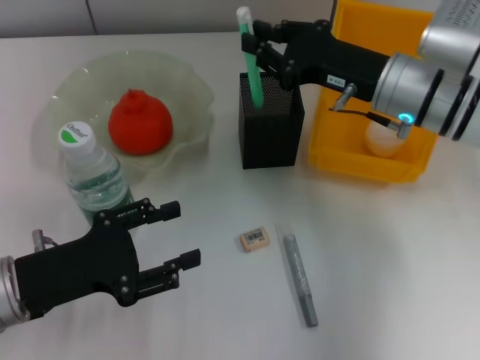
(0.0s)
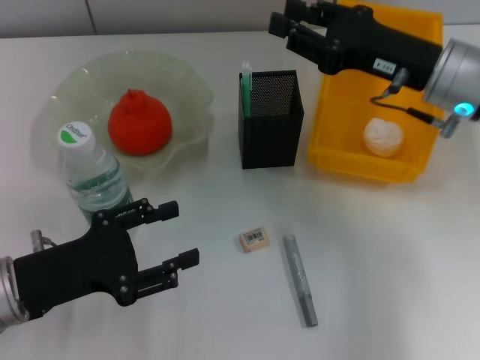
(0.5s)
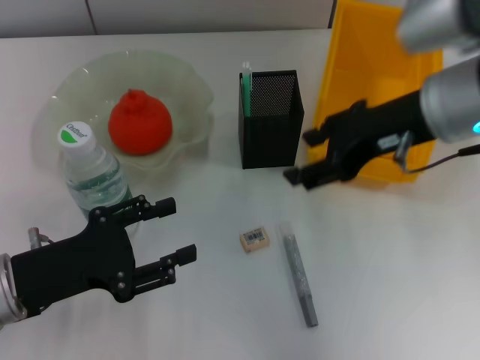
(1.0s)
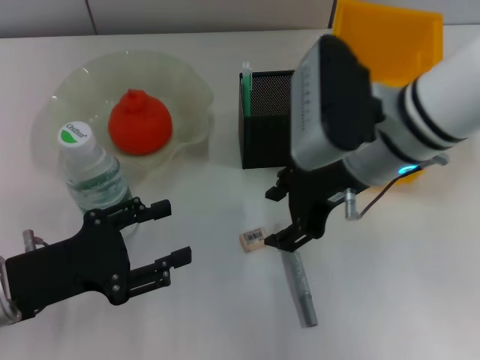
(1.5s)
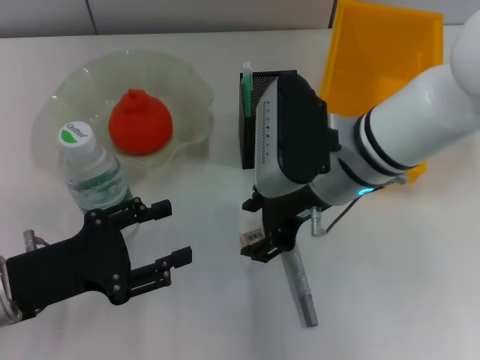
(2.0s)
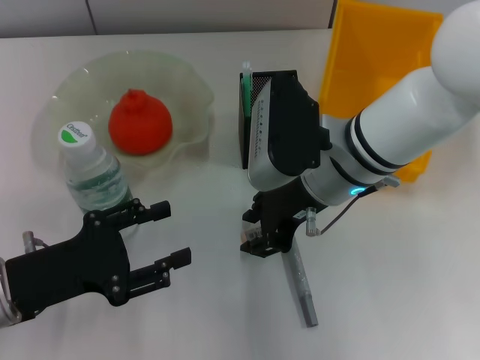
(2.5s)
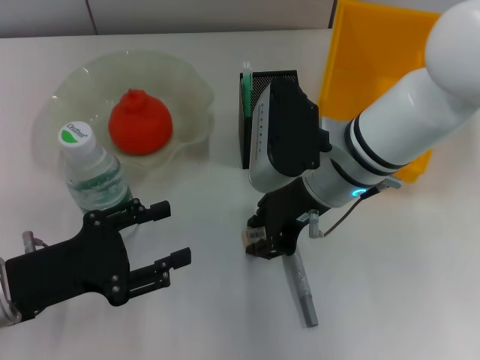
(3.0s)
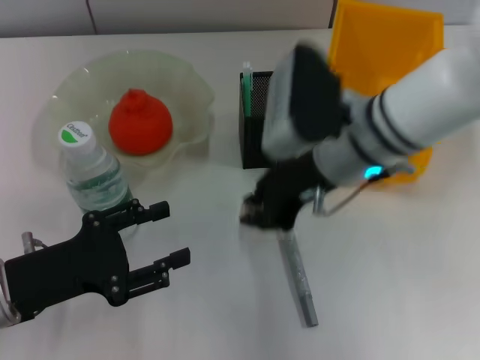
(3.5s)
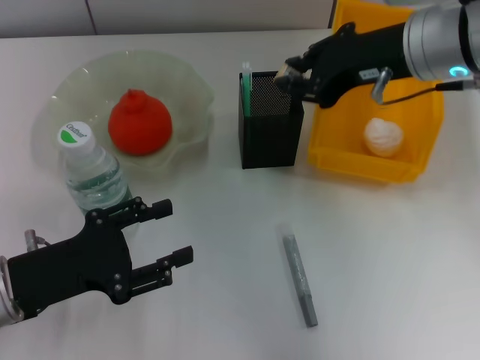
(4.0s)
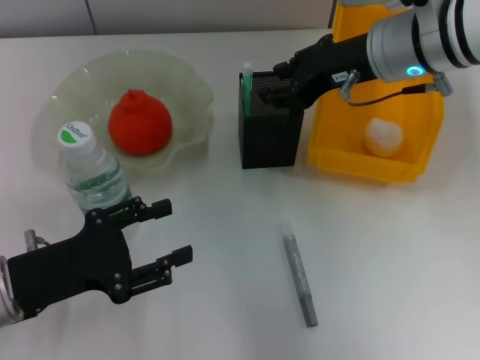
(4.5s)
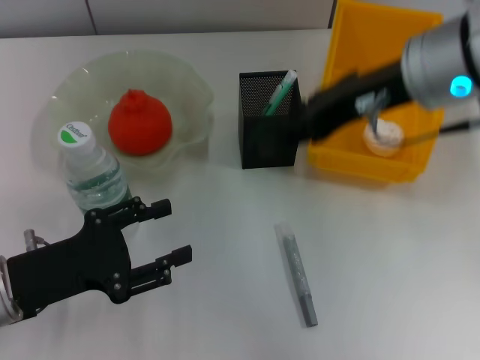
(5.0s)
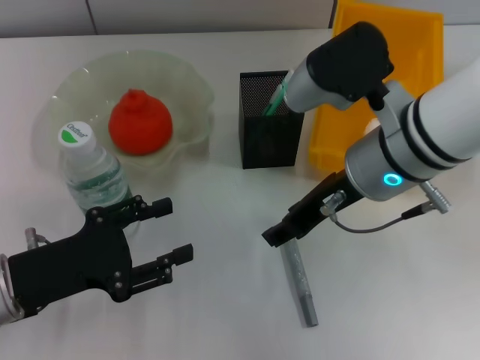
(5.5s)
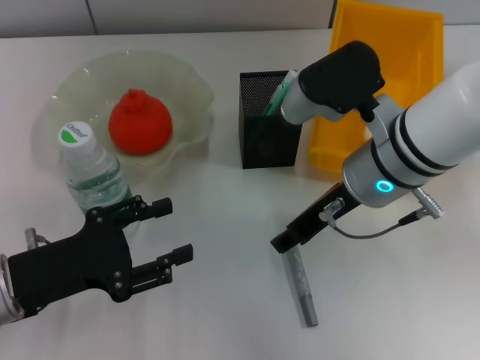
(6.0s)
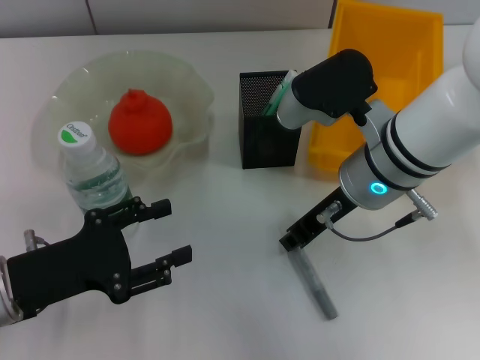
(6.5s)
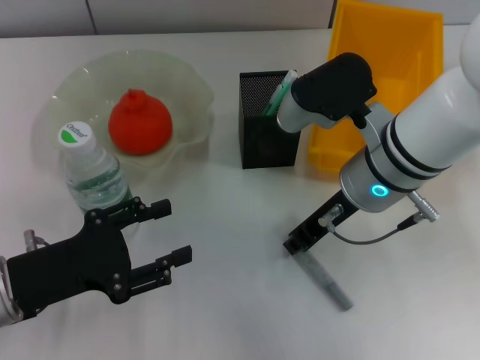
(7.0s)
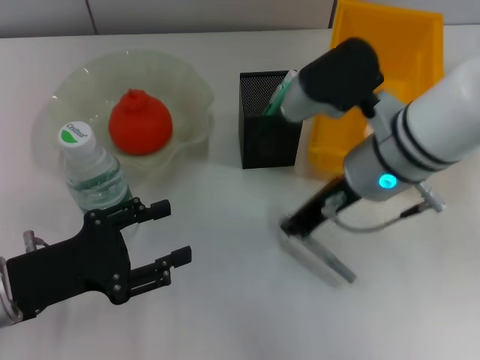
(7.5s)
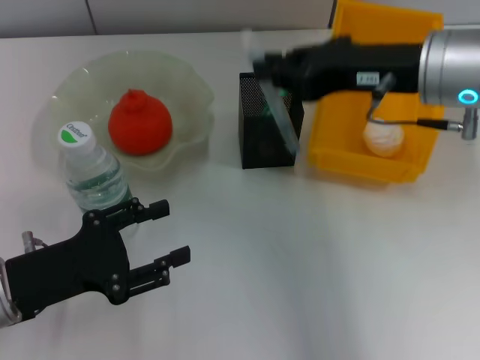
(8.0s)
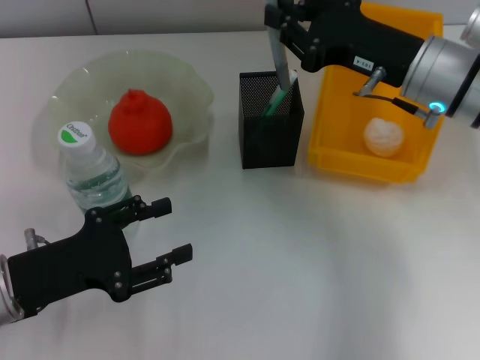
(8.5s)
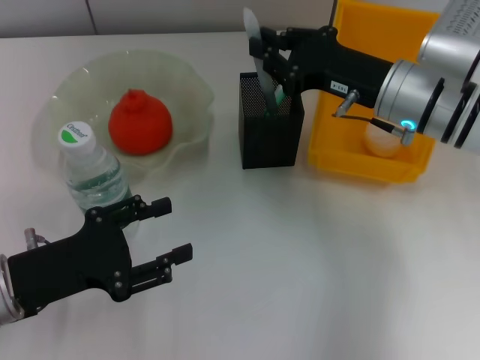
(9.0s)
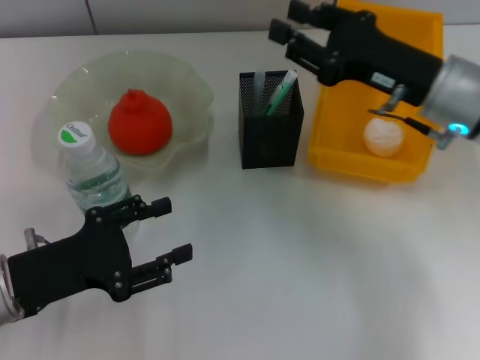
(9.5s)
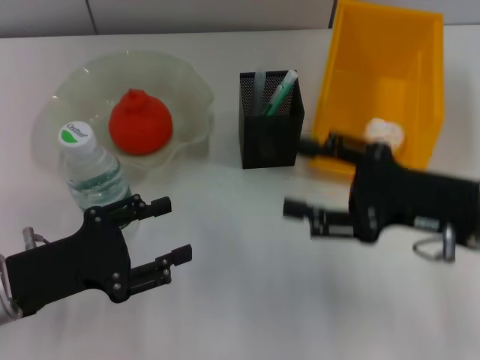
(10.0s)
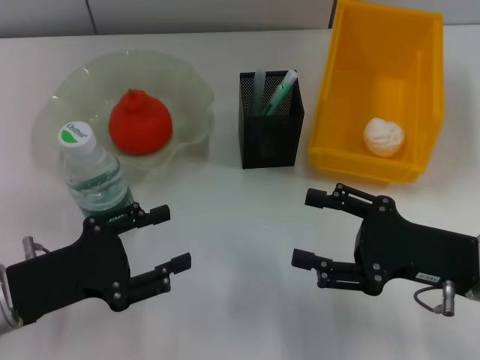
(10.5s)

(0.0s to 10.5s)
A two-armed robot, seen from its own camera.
Step, 1.0s - 3.0s: Grab the eraser with the right hand.
Step, 3.5s - 5.0s: Put the eraser into the pen holder with the right hand.
Step, 5.5s - 7.0s: Grab the gray glue with the right hand.
Step, 7.5s - 9.5s: Place the gray glue into the pen holder with the right hand.
0.0s - 2.0s: The right gripper shifts some 10 cm to the left, and opens its fingers.
2.0s - 4.0s: The right gripper goes about 10 cm upward and to the right, and closes.
4.0s - 6.5s: The right gripper is displaced downward and to the left by about 10 cm.
6.5s - 8.5s: The right gripper travels to the right by approximately 5 cm, and closes up.
8.5s - 10.5s: The right gripper moves backward and downward, approximately 15 cm, and opens its fingers.

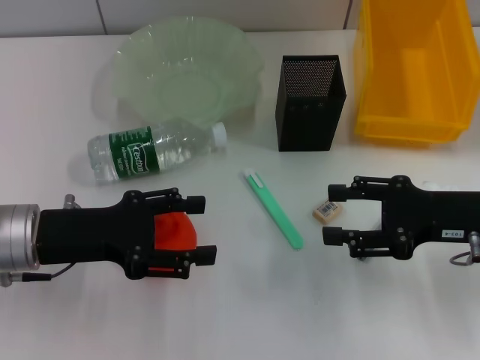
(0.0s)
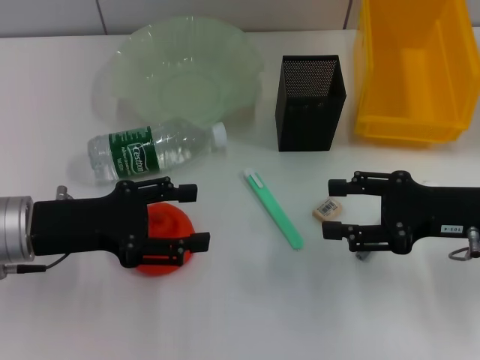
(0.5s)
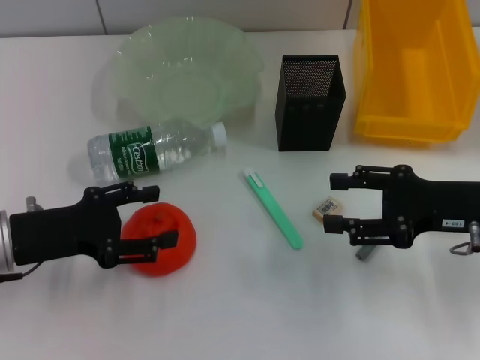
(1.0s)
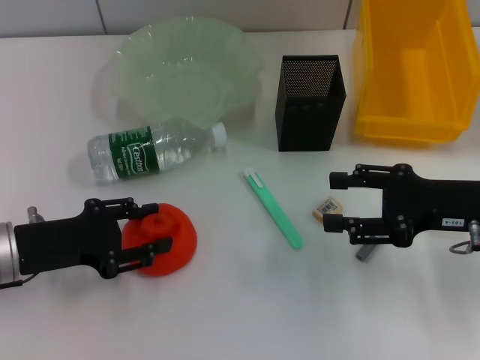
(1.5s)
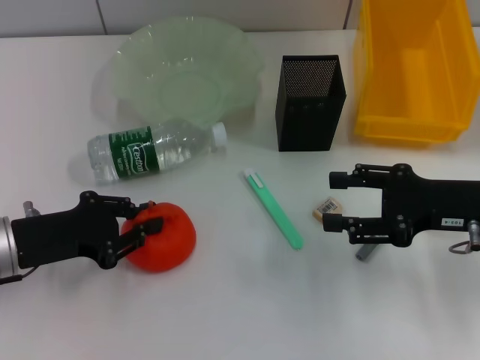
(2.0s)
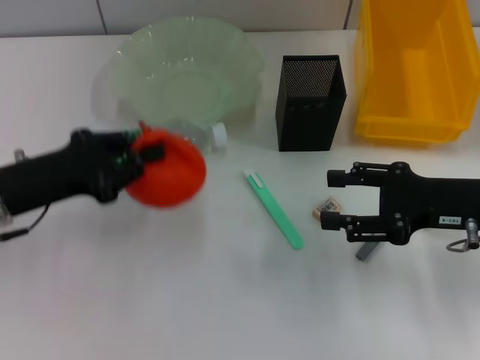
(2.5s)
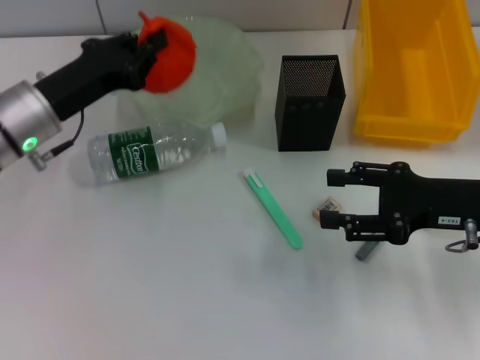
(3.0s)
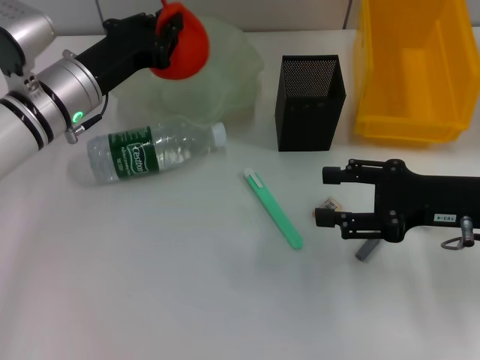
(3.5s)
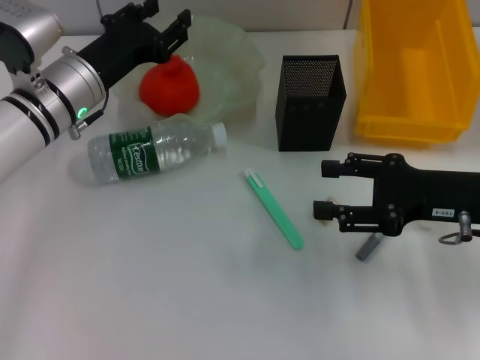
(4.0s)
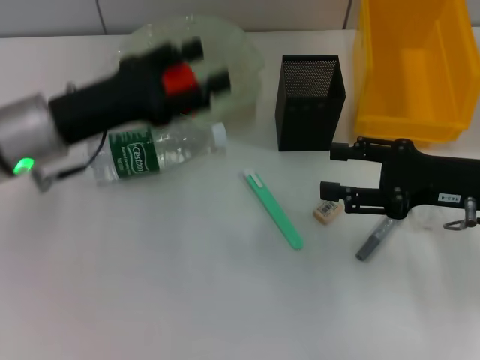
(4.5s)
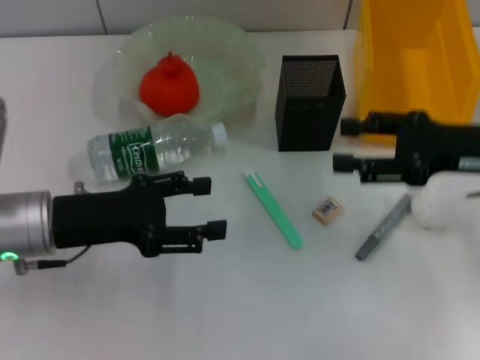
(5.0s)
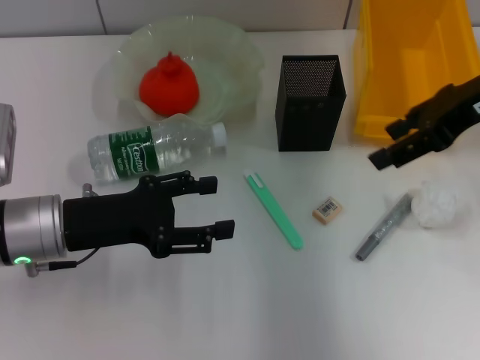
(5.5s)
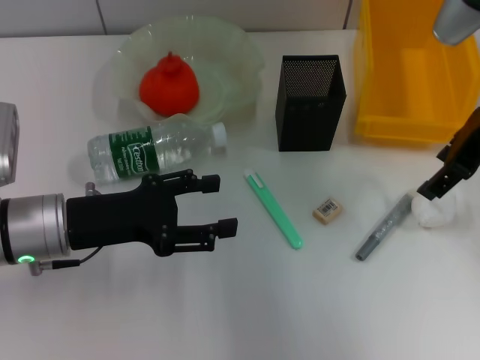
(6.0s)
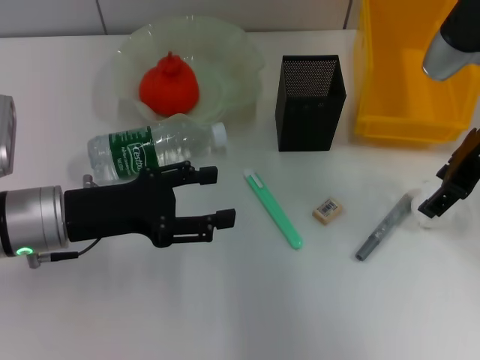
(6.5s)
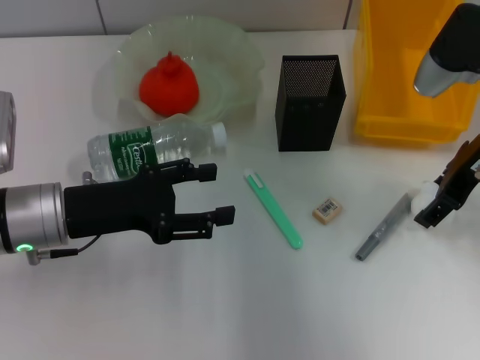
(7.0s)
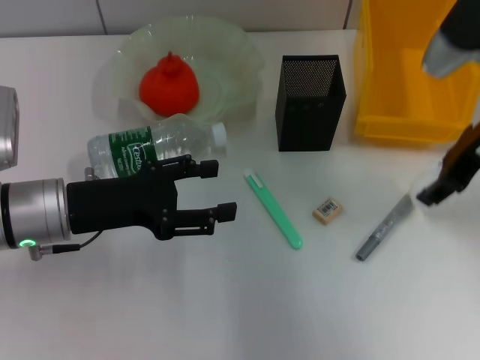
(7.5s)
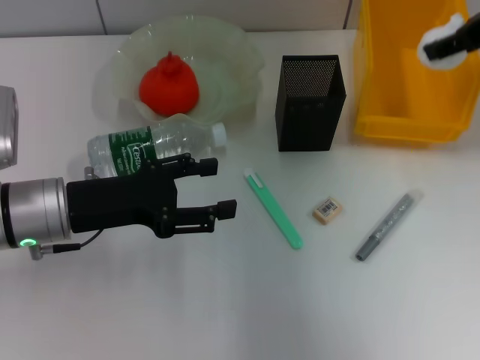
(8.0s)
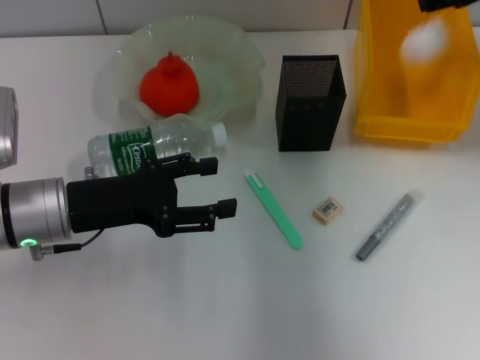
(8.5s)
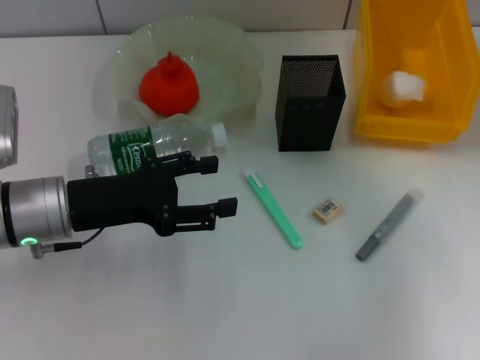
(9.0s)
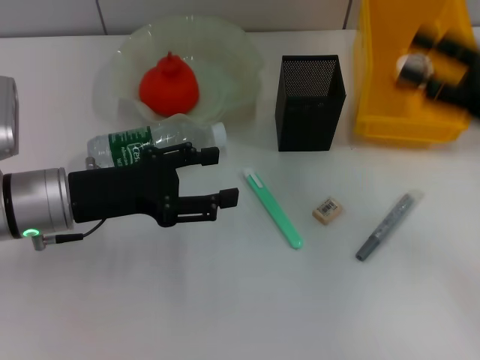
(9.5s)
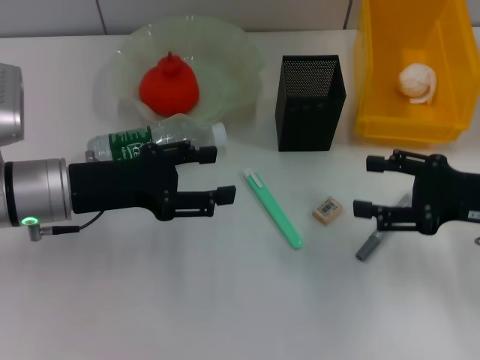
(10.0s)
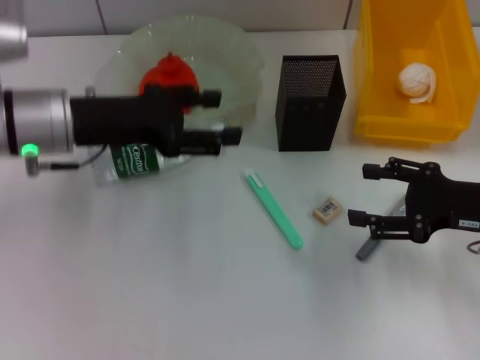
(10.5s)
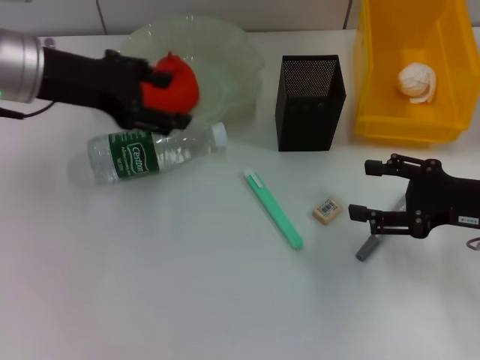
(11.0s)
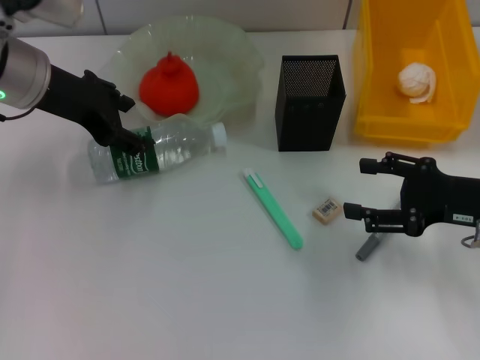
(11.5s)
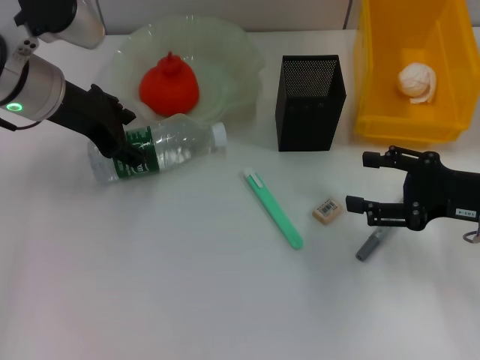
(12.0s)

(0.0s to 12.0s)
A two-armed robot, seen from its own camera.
Step, 0.0s - 1.5s: Grab the orange with the left hand.
Step, 2.5s - 4.0s: Place the orange into the fruit bowl with the left hand.
Step, 4.5s - 7.0s: Grab the paper ball with the right hand.
Step, 7.5s - 9.0s: Place the paper ball into the trash can with the right hand.
0.0s - 2.0s: The left gripper closes.
2.0s - 4.0s: The left gripper heads forward and to the right, covering some 15 cm.
4.0s - 6.0s: The left gripper heads backward, covering about 10 cm, and opens up; the right gripper shifts about 15 cm upward and forward.
6.0s - 8.0s: The right gripper moves approximately 5 cm.
8.0s - 10.0s: The right gripper moves downward and backward, some 20 cm, and opens up.
10.0s - 12.0s: The left gripper moves forward and upward, about 10 cm.

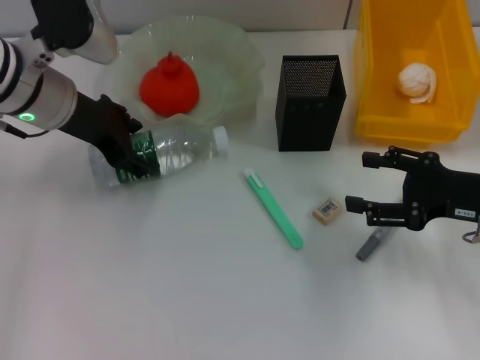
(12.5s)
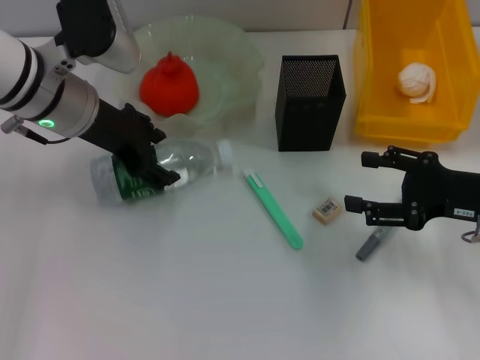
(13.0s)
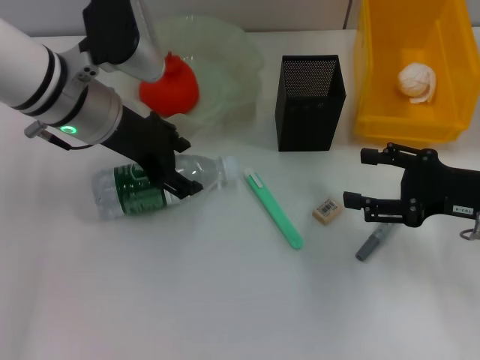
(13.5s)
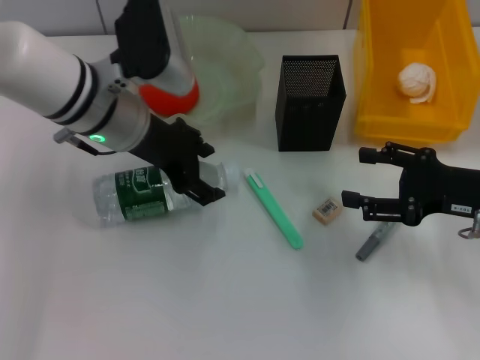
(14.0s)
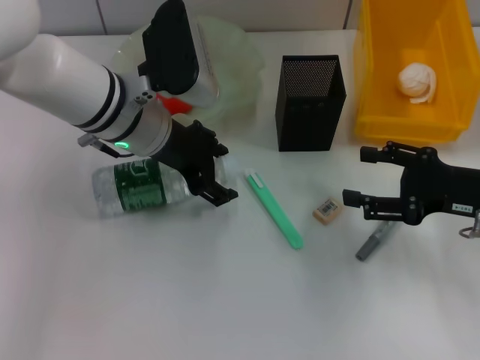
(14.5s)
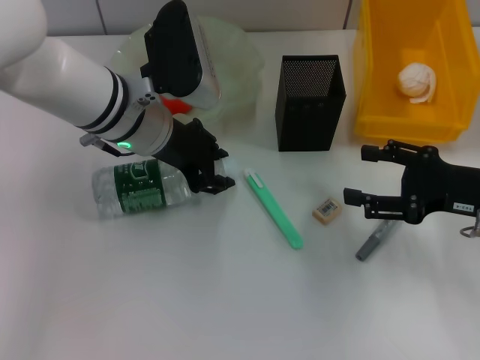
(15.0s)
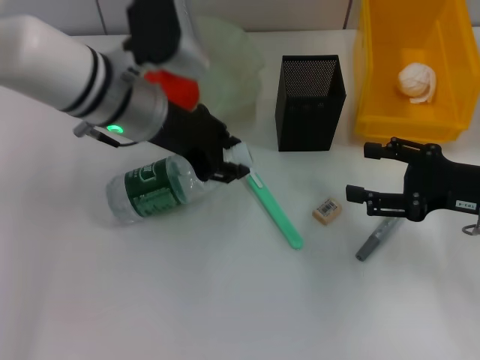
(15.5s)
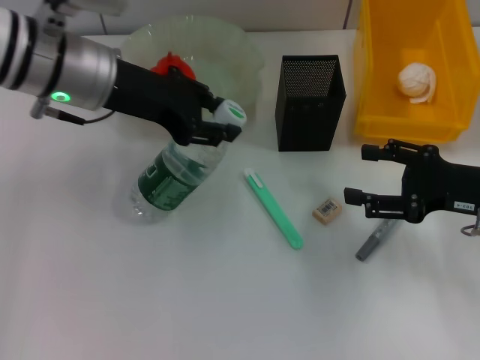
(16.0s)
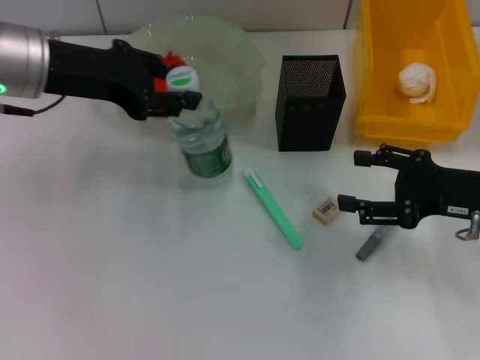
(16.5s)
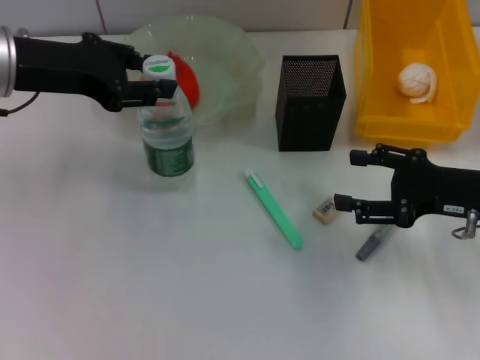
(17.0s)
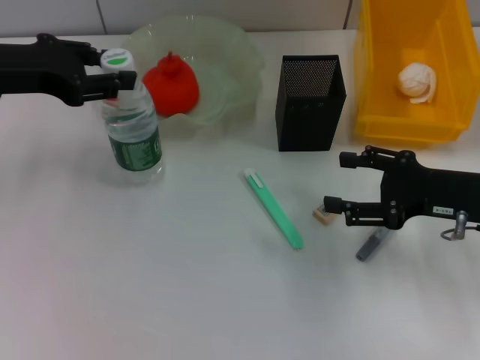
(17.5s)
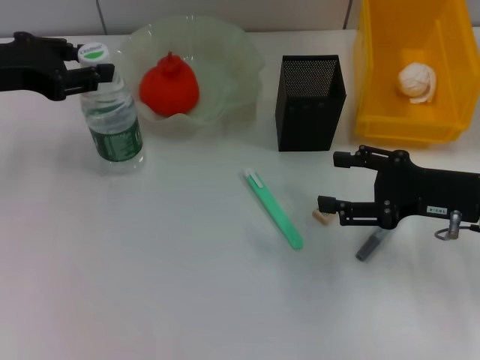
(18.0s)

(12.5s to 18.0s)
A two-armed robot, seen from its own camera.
Step, 12.5s - 14.5s: Grab the water bottle with the left hand.
12.5s - 14.5s: The left gripper shifts approximately 10 cm to the right.
14.5s - 16.0s: The left gripper goes about 5 cm upward, and closes its fingers.
16.0s - 18.0s: The left gripper heads to the left, covering approximately 15 cm.
